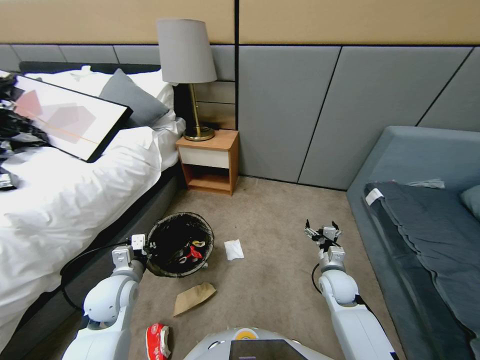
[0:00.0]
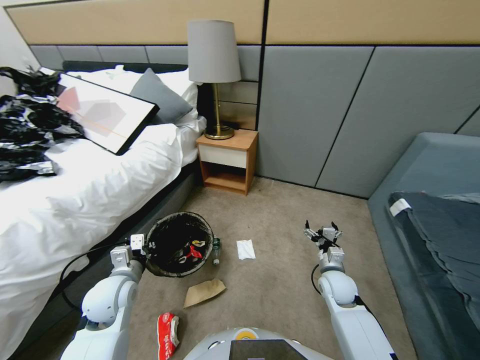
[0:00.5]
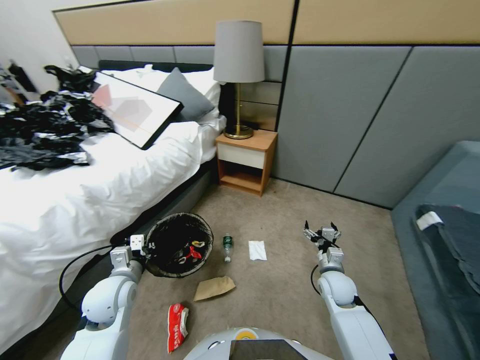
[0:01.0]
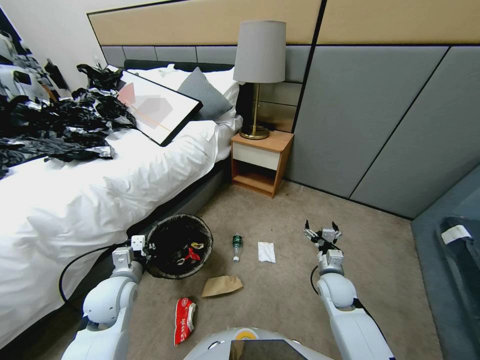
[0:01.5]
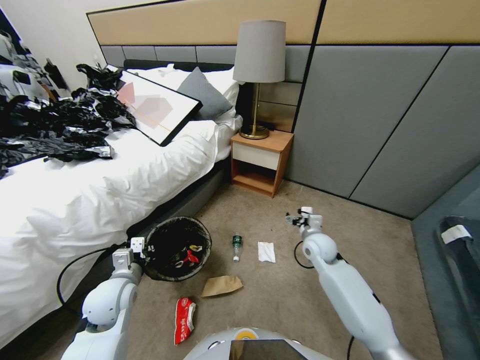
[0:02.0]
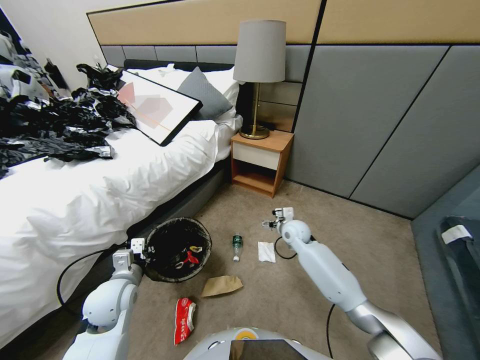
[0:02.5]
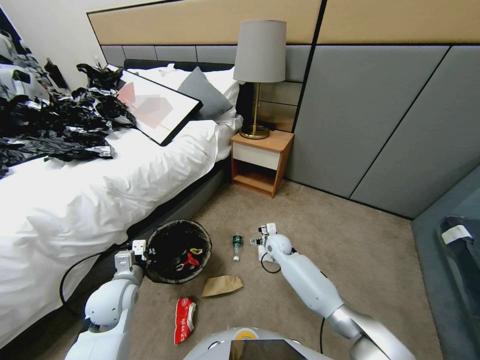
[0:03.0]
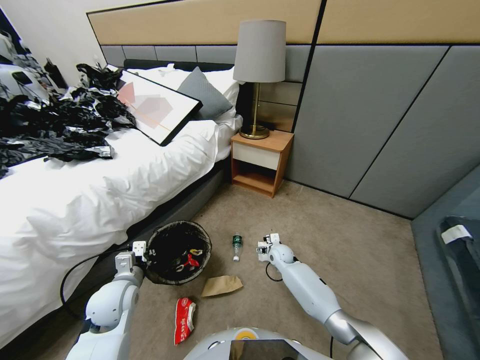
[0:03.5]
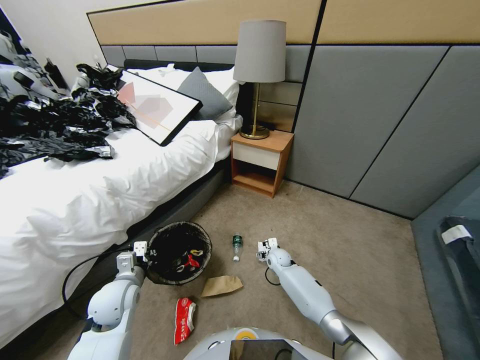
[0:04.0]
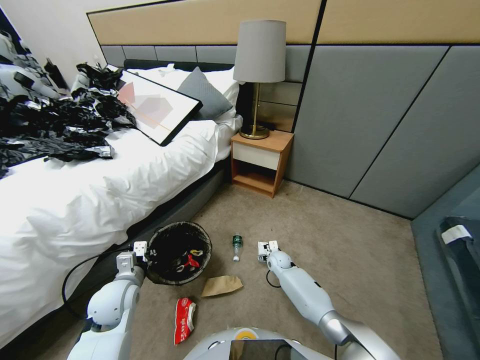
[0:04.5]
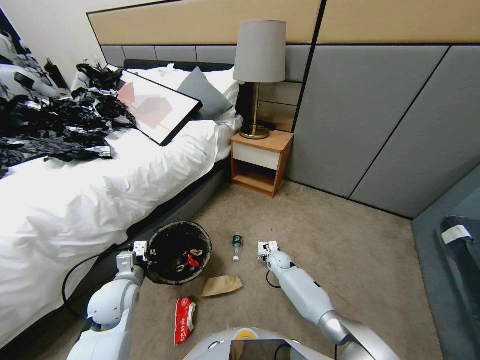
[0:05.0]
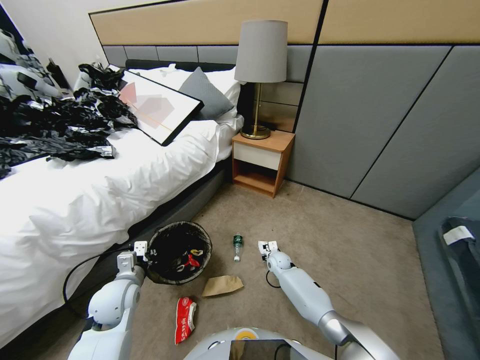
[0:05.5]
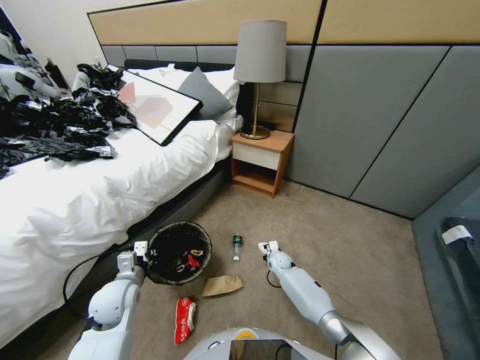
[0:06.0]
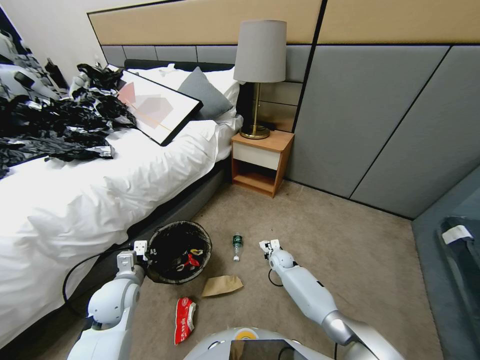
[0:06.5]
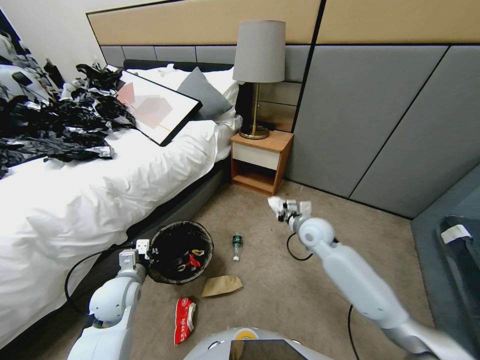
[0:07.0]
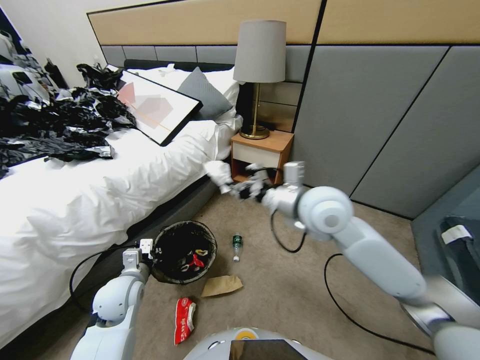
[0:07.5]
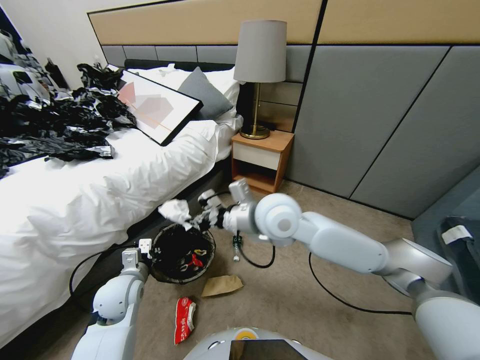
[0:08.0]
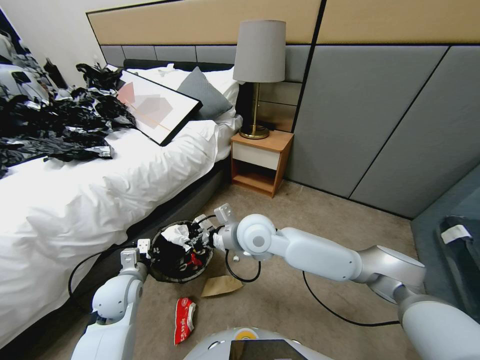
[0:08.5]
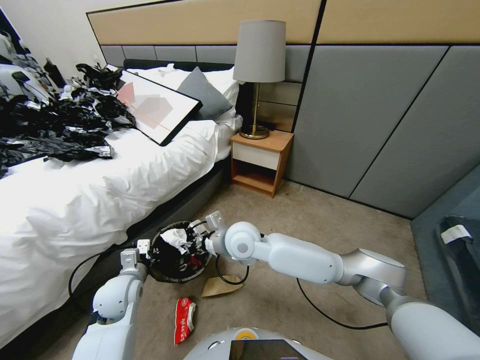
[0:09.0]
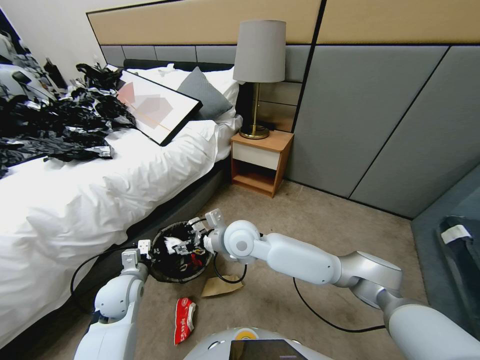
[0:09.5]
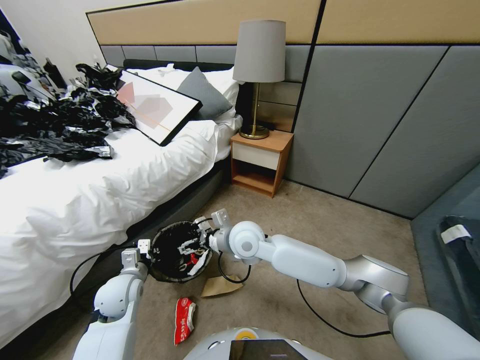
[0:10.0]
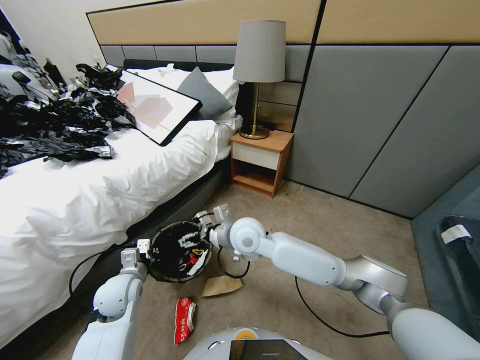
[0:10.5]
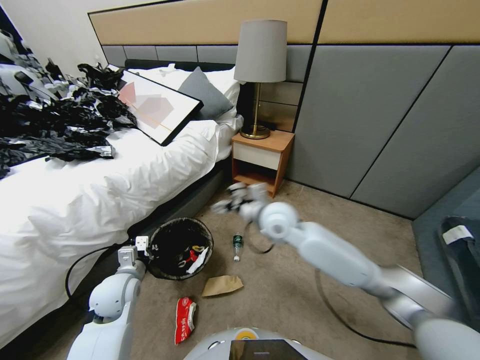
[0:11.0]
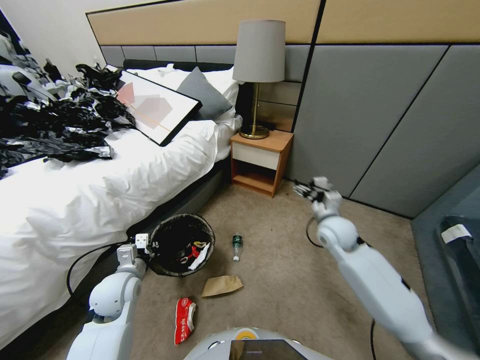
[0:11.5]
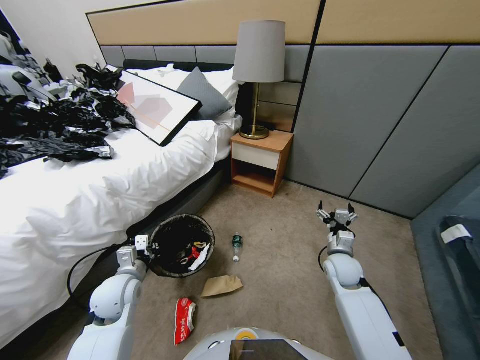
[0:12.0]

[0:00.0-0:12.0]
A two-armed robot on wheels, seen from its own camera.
Task of the whole recording: Pick up the trash bin, then pick up the garbage from the floor and place it into the trash bin.
0.0 to 2.0 s: The right gripper travels forward and upward by some 15 cm.
2.0 to 4.0 s: The right gripper goes some 20 cm downward and to the left.
4.0 to 6.0 s: The right gripper closes its fingers.
6.0 to 8.0 s: The right gripper is displaced upward by about 40 cm.
8.0 to 10.0 s: The right gripper heads downward, covering roughly 10 cm, and opens up.
10.0 to 12.0 s: The right gripper is displaced to the right and downward by approximately 35 cm.

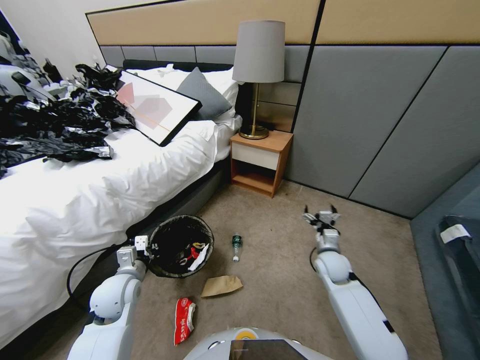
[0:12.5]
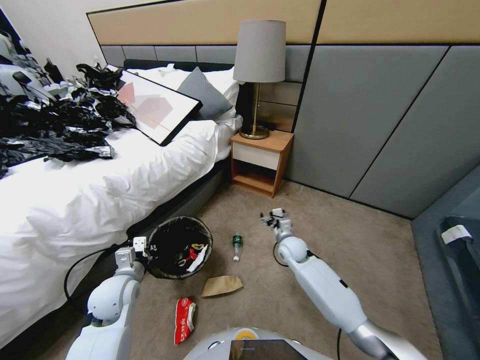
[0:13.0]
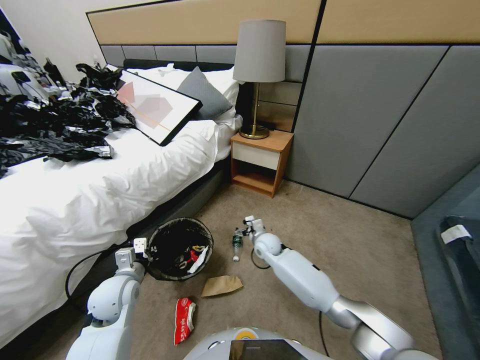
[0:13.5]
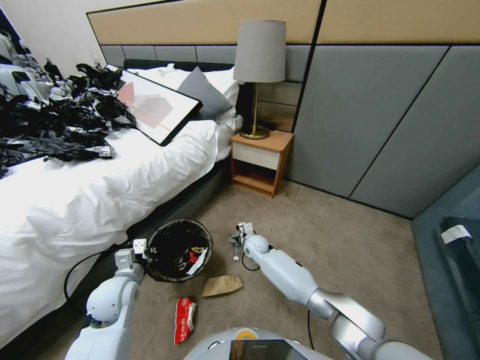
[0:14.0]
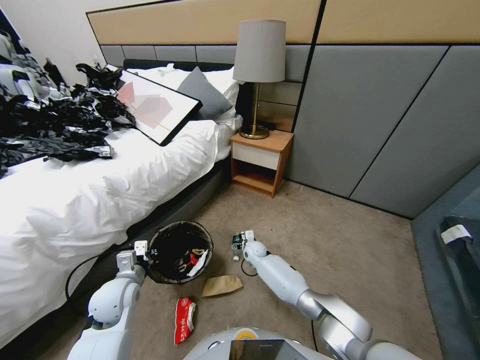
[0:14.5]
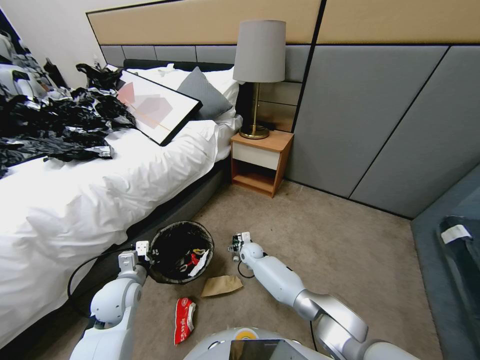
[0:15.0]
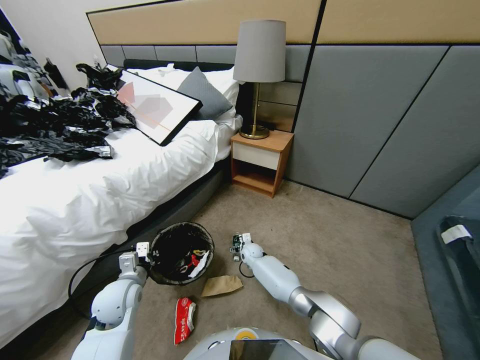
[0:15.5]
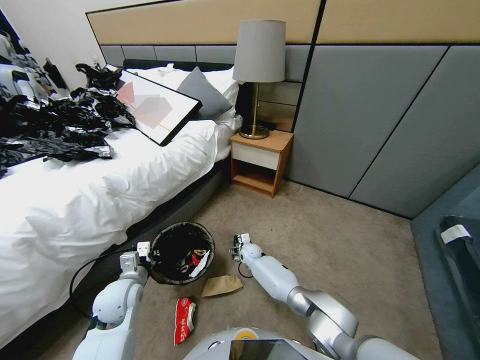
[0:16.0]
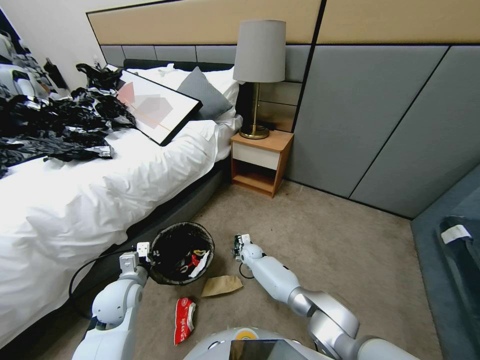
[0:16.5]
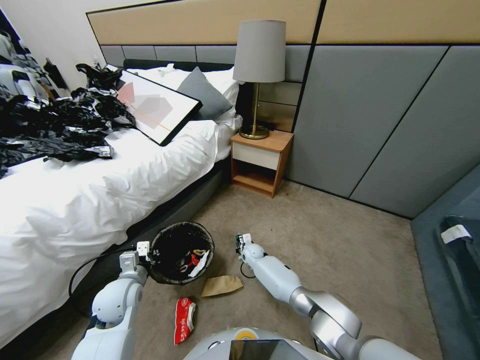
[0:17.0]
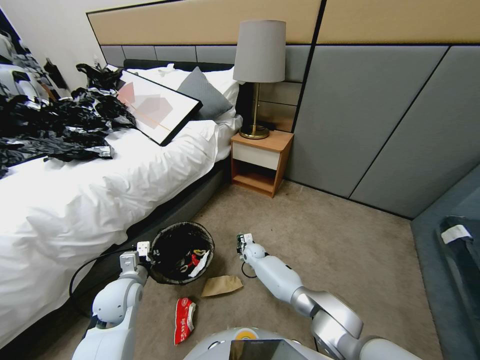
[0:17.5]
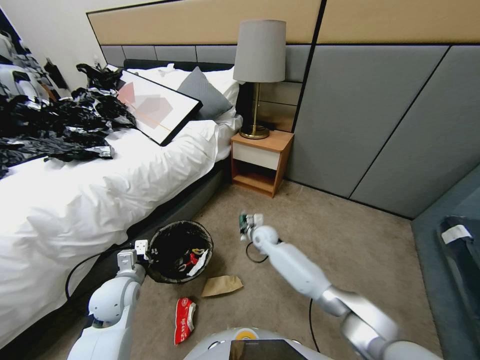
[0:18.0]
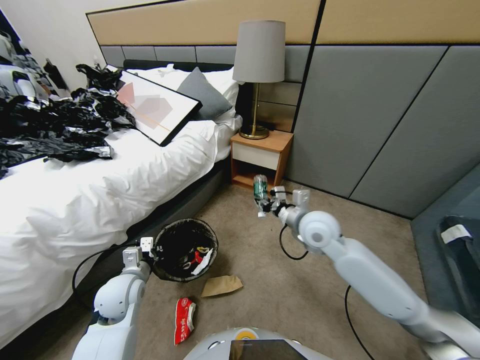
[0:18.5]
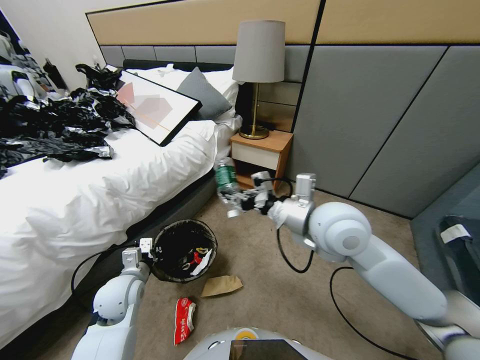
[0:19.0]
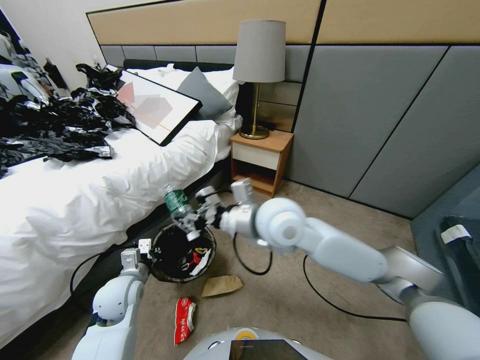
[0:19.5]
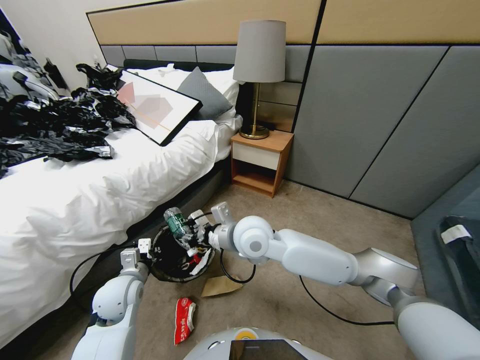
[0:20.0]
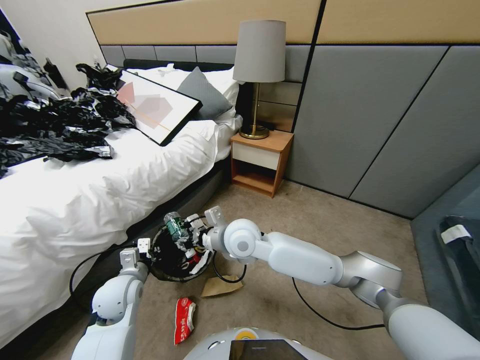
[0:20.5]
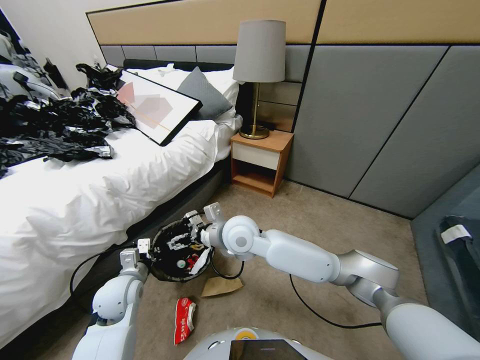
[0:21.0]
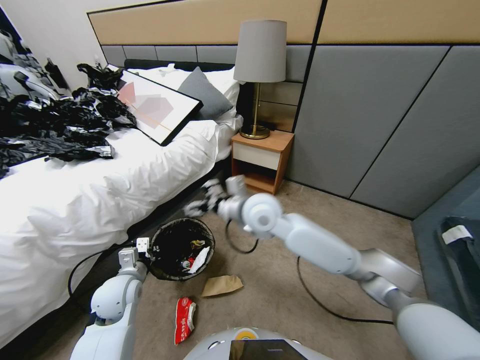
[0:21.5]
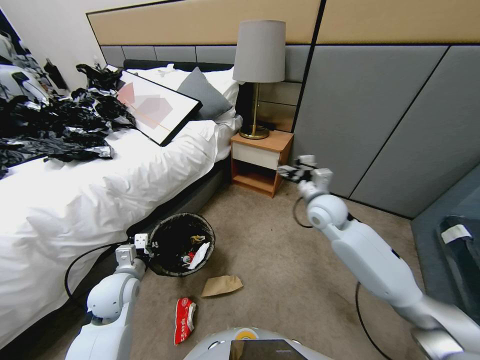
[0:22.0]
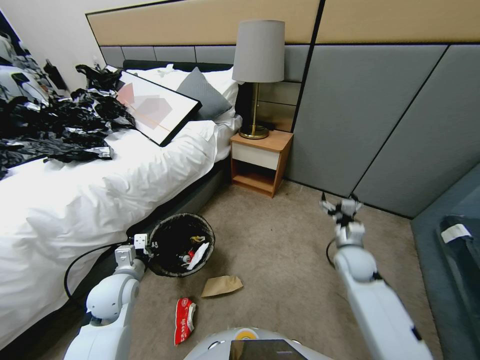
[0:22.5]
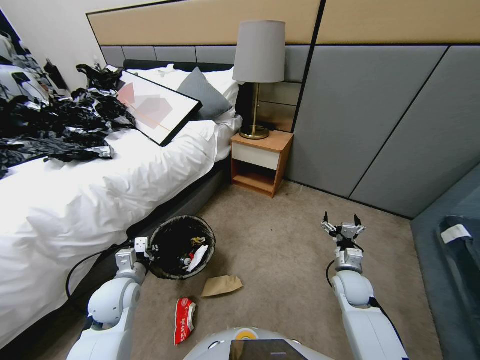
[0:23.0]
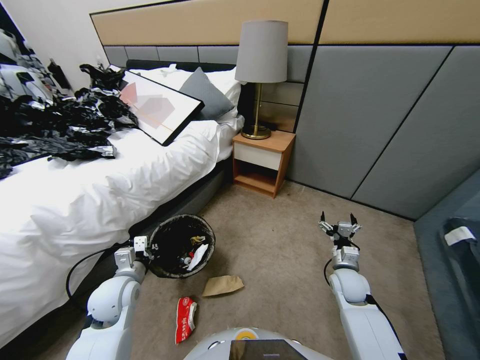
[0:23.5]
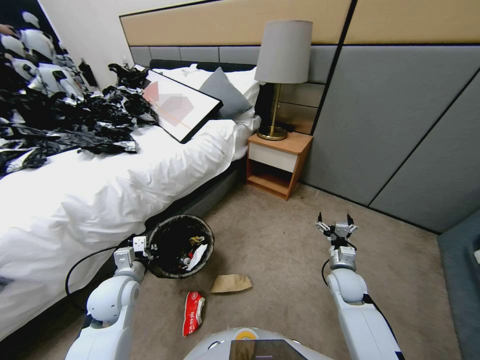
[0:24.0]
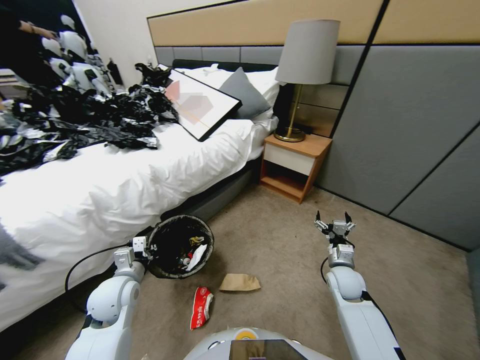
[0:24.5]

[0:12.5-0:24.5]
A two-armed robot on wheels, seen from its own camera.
Task of the whole recording: Pick up the trash bin, then pick up the garbage from the floor and place it into the trash bin.
12.5 to 14.5 s: The right gripper goes approximately 30 cm to the left, downward and forward.
14.5 to 16.5 s: The right gripper closes its fingers.
16.5 to 18.5 s: The right gripper goes some 35 cm upward, and closes its fingers.
18.5 to 20.5 s: The right gripper is displaced to the left by some 20 cm, and opens.
20.5 to 22.5 s: The right gripper heads to the right and downward, covering some 35 cm, and opens up.

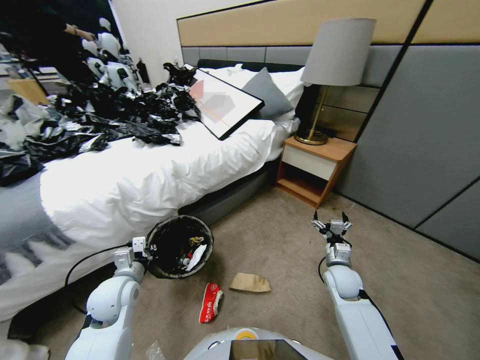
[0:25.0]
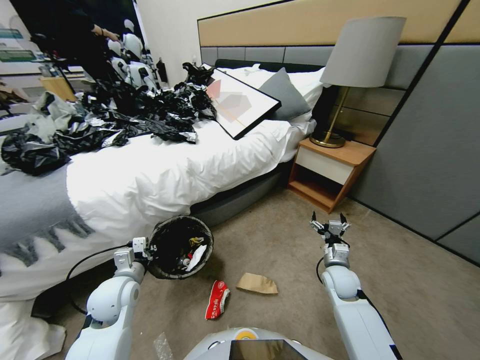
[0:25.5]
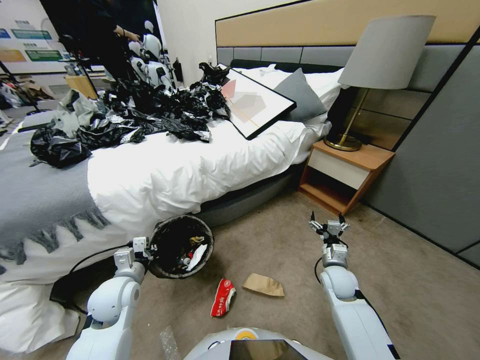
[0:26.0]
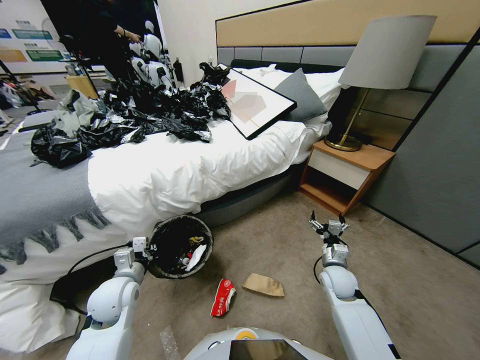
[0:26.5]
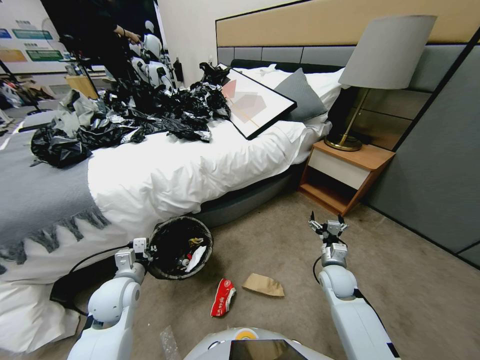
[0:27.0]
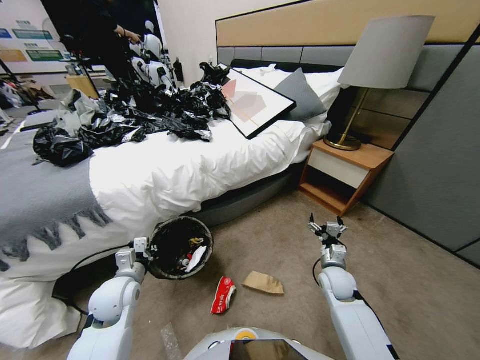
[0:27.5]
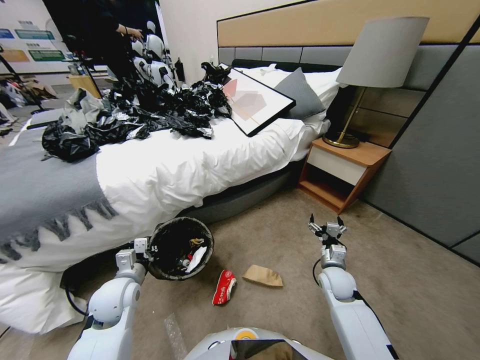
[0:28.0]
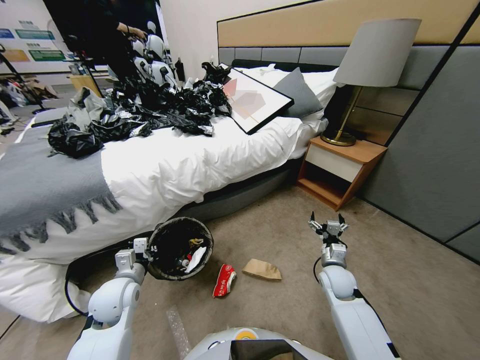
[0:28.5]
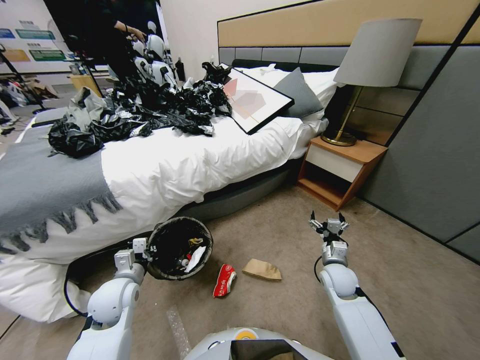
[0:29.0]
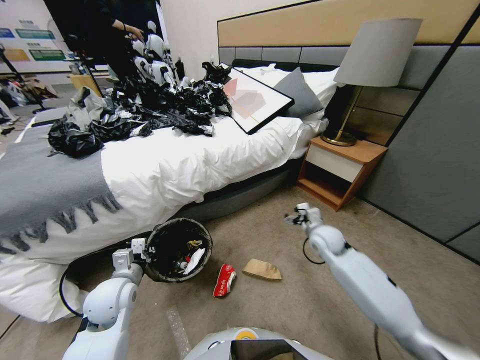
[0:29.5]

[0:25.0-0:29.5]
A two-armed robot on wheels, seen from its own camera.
Task of the whole recording: Pick up the trash bin, then pick up the garbage from the floor and place it into the trash bin.
27.0 to 29.5 s: The right gripper shifts roughly 15 cm forward and upward.
